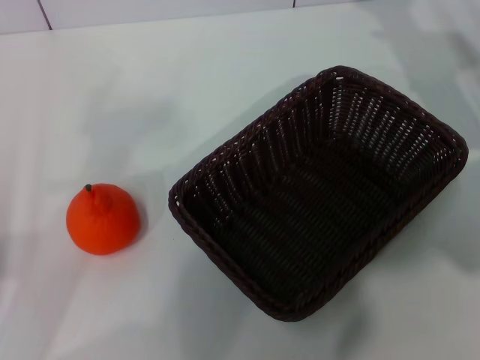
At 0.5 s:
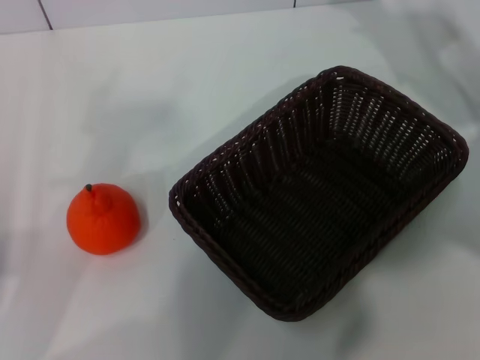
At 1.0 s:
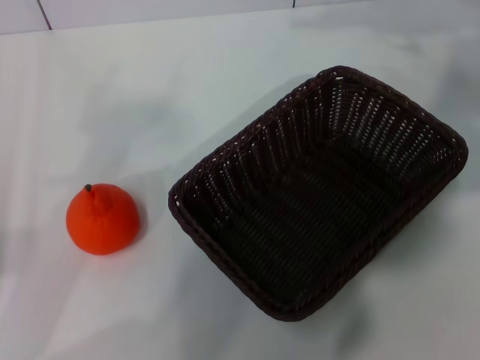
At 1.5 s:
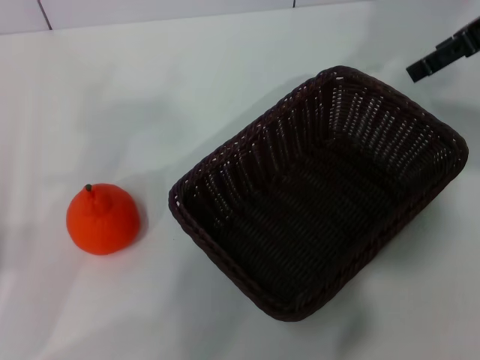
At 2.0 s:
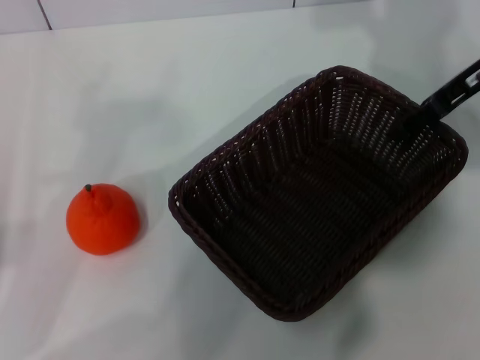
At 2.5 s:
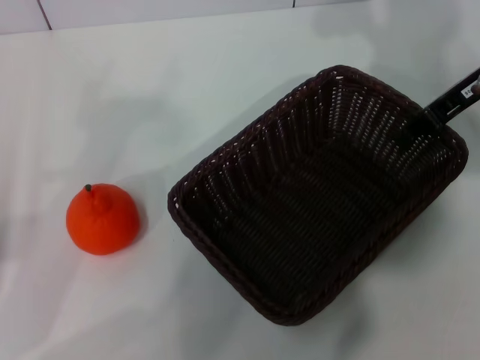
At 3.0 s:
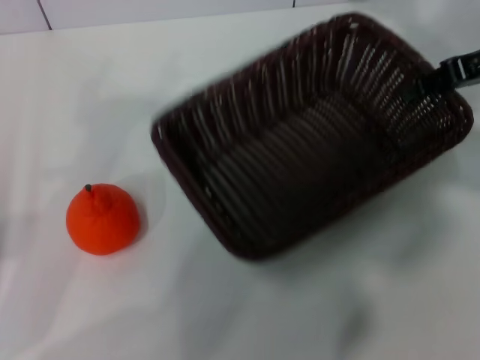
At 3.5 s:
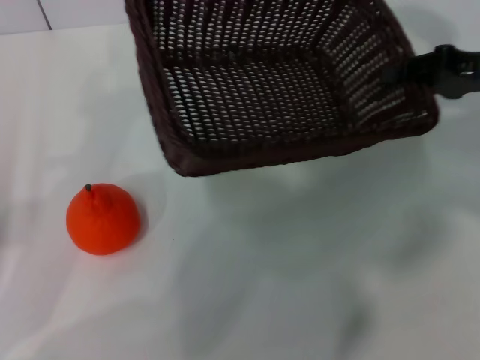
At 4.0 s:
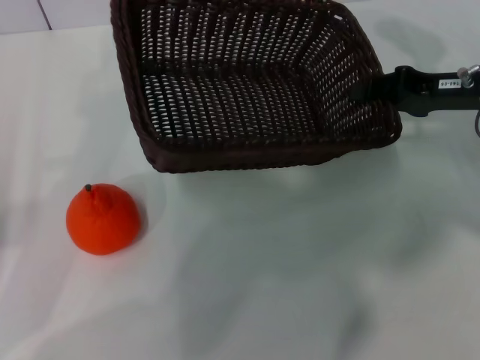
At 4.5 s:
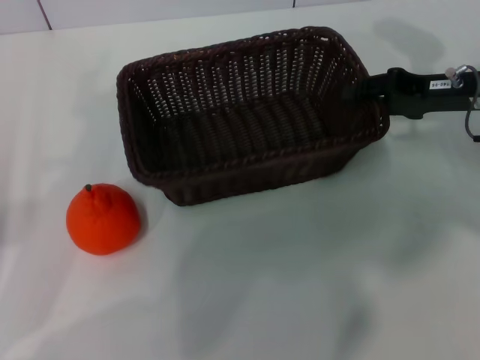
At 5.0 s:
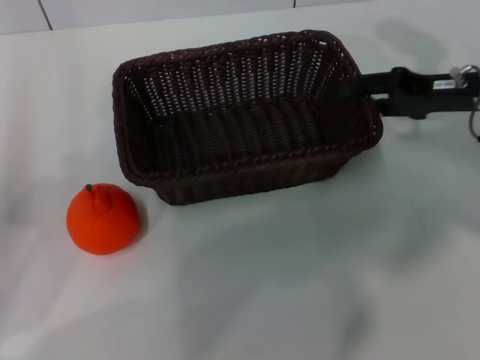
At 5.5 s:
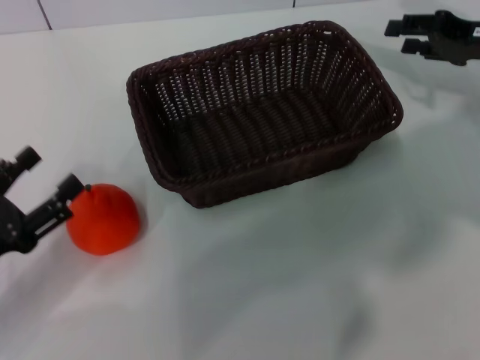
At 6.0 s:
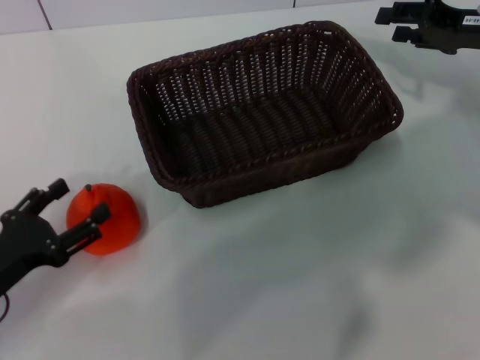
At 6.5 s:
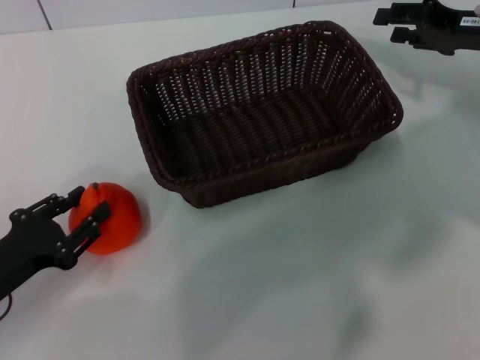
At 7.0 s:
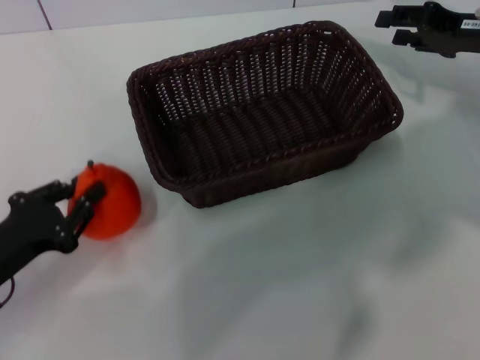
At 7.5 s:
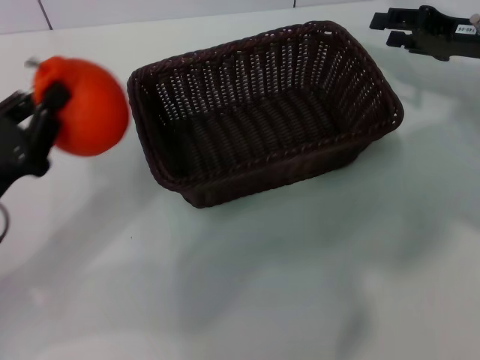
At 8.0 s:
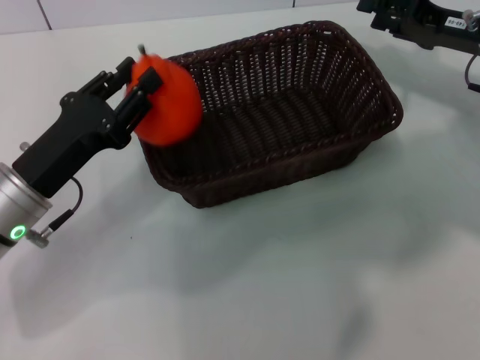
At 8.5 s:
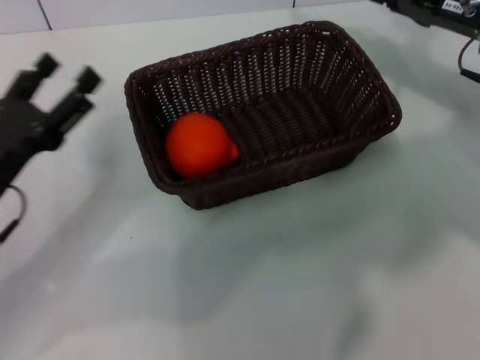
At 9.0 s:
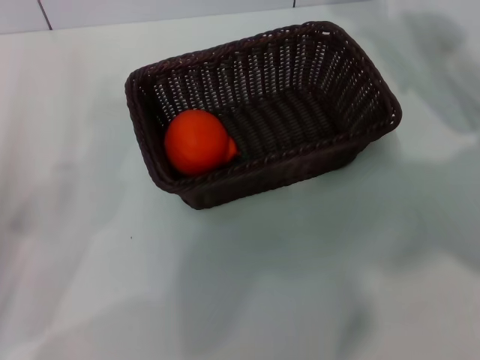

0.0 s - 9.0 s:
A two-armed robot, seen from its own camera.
Task of the whole recording: the right gripper pick up the black basket and place it horizontally in the middle of the table, the left gripper pick up the orange and place it into the black basket.
Step, 0.0 s - 2.5 s: Pick up the dark basket with the right gripper.
Step, 3.0 s - 5.0 s: Place the dark basket in the center of view with the right gripper.
Step, 5.5 s - 7.0 s: Pick up the orange with the left gripper.
Step, 7.5 s - 8.0 s: Place the orange into the dark basket with the left gripper.
0.0 s - 2.0 s: The right gripper heads upward, covering some 5 cm.
2.0 s - 4.5 s: The right gripper is displaced downward by approximately 10 cm, and closes.
4.5 s - 7.0 s: The right gripper opens its fingers. The left gripper ends up some 5 cm from where it was, and closes.
7.0 s - 9.0 s: The left gripper reaches approximately 5 cm to the right, then returns, and opens up.

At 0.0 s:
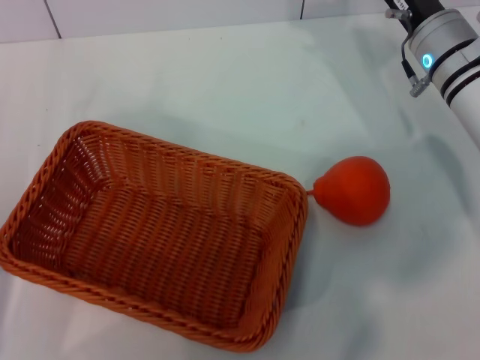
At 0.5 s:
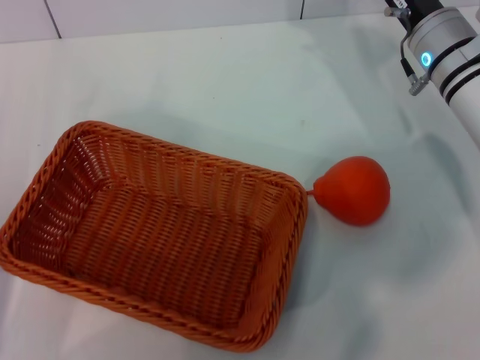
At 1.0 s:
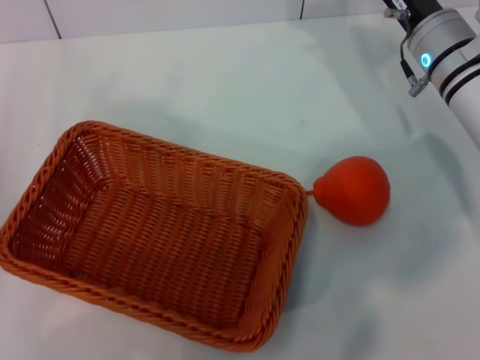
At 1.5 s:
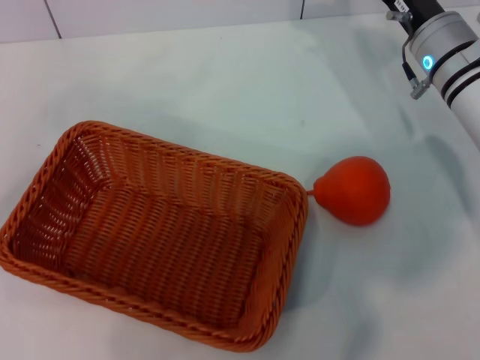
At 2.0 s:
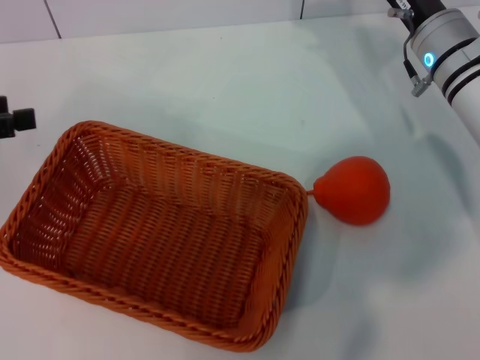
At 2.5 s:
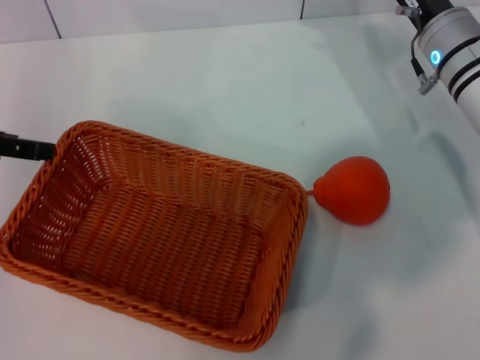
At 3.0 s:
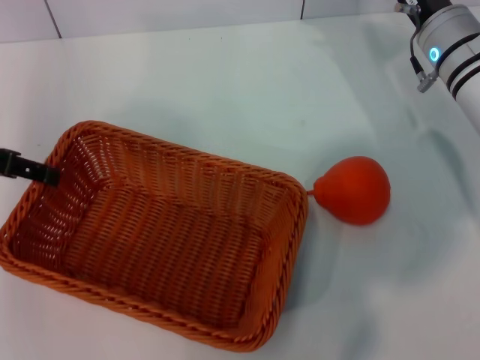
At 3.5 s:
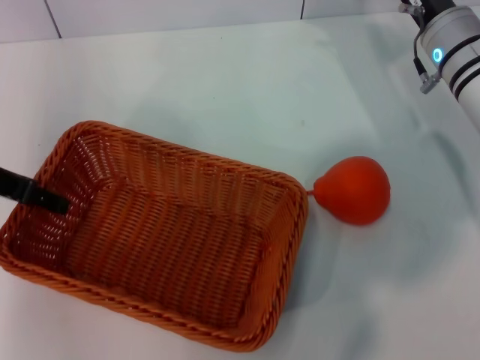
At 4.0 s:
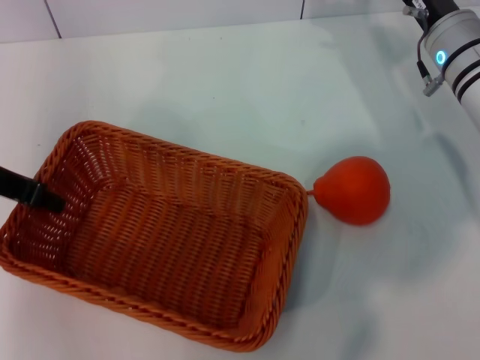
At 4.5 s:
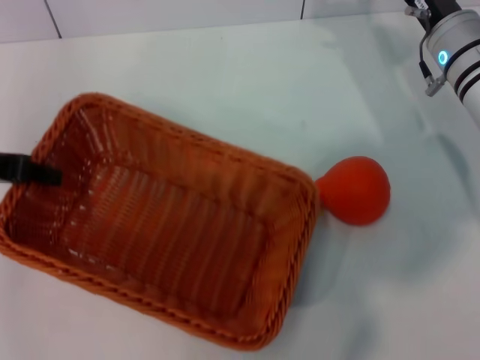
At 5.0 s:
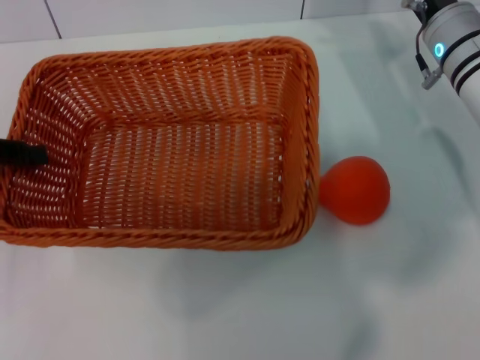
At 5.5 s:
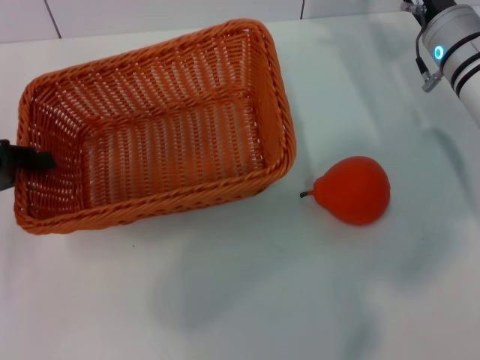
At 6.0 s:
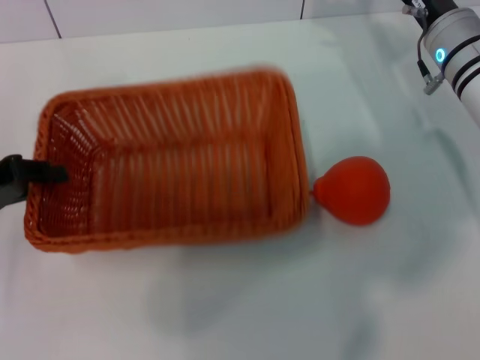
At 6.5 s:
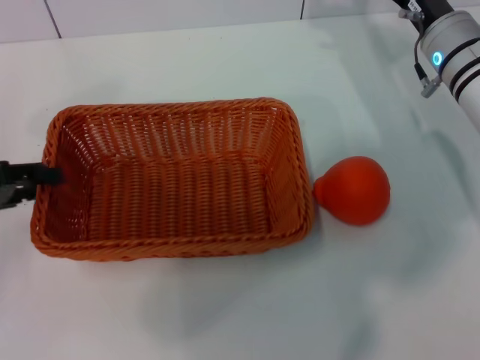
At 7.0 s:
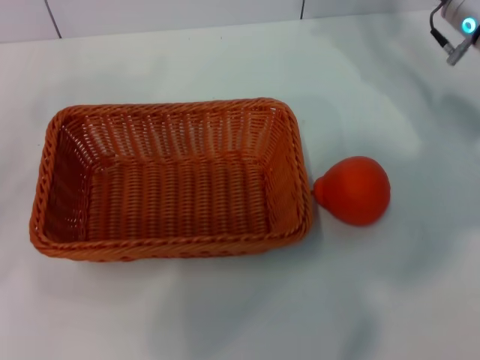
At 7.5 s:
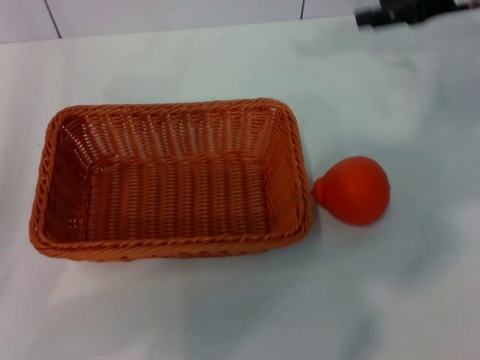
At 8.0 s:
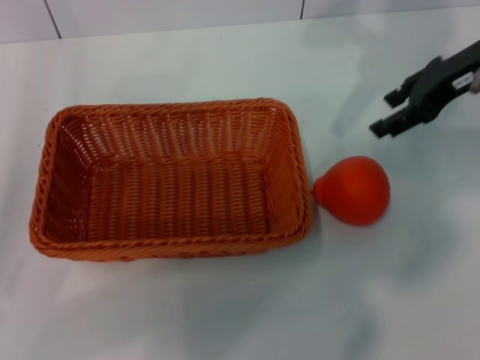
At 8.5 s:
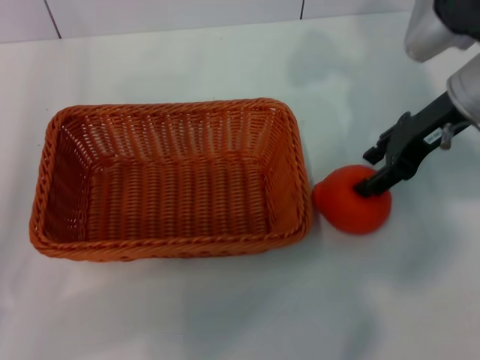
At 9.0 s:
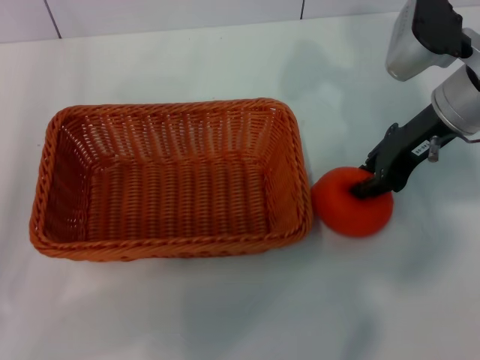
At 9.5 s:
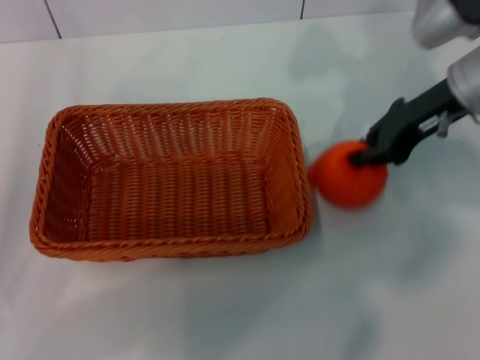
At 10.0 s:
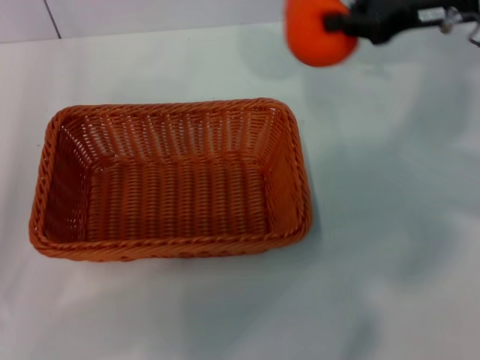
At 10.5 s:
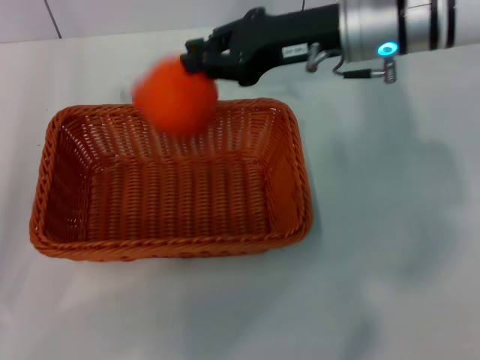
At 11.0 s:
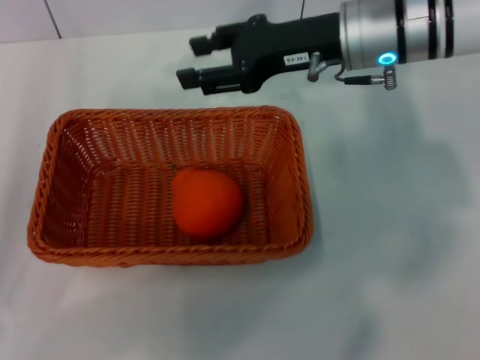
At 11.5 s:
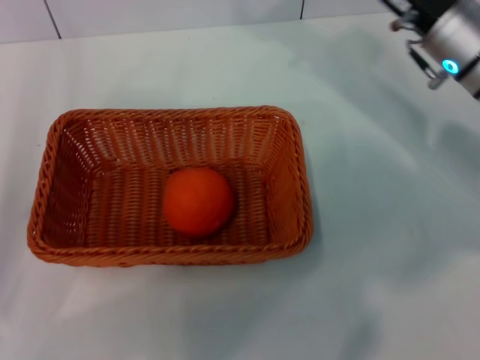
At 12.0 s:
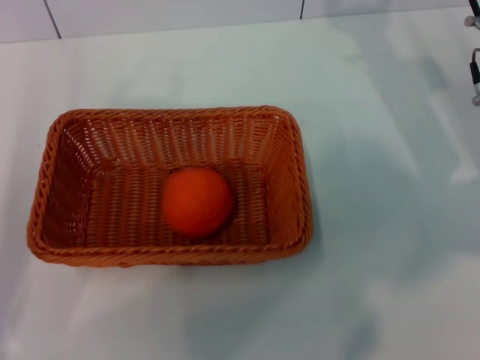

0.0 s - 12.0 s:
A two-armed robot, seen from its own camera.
Task of the whole recording: the left gripper pick up the yellow basket and place it horizontally in the middle of the table, the right gripper pick up the orange and place it into the yellow basket.
Step, 0.0 s - 4.0 s: Pick up the light basket with the left gripper.
Step, 5.0 s - 6.0 s: Place the light basket in the center of view with the left gripper.
Step, 6.5 s - 9.5 s: Pick up the orange with the right gripper.
Step, 10.0 s - 10.5 s: Place the orange into the light basket with the right gripper.
0.0 s - 2.0 s: The left gripper heads upward and forward, covering some 15 cm.
2.0 s - 4.0 s: The left gripper travels to the right by some 10 cm, and closes up.
4.0 s - 6.0 s: The left gripper moves to the left and downward, some 10 cm.
6.0 s - 8.0 s: The right gripper goes some 10 cm upward. Meanwhile the left gripper heads backward, covering some 5 cm, and opens up.
8.0 s - 10.0 s: The right gripper closes up.
10.0 s - 12.0 s: The right gripper moves downward, some 10 cm, reaches roughly 10 cm to the left, then returns, and opens up.

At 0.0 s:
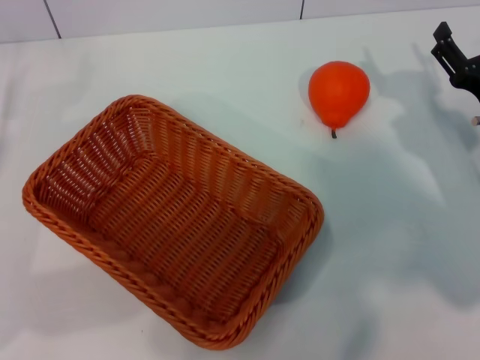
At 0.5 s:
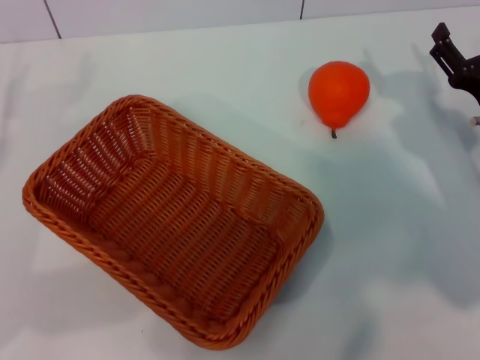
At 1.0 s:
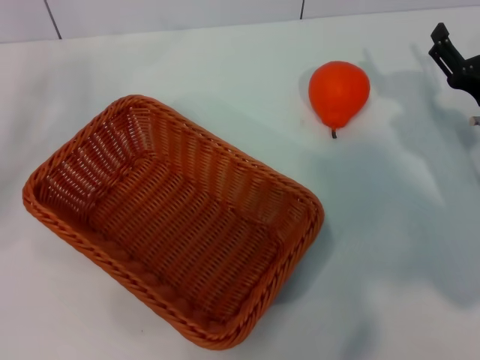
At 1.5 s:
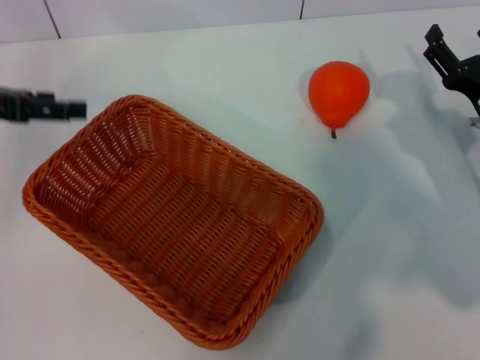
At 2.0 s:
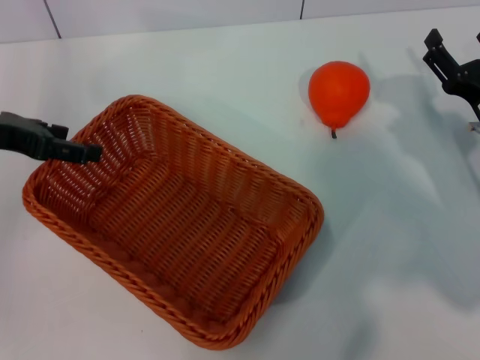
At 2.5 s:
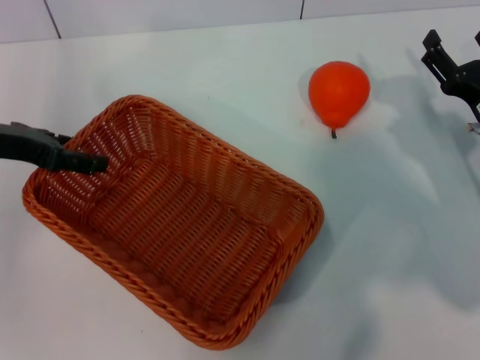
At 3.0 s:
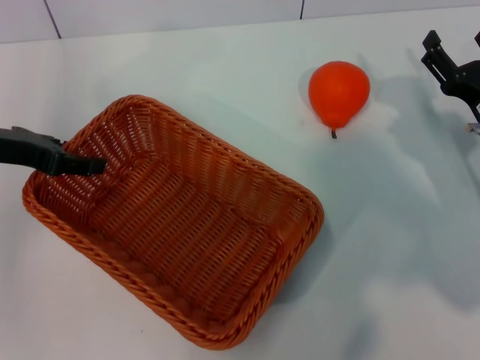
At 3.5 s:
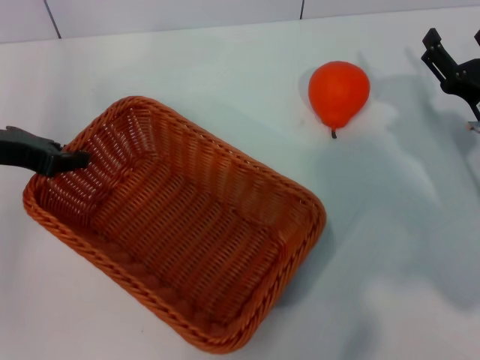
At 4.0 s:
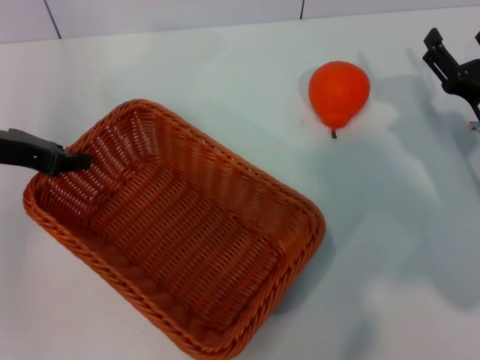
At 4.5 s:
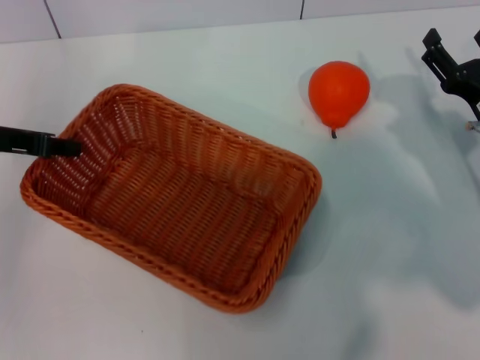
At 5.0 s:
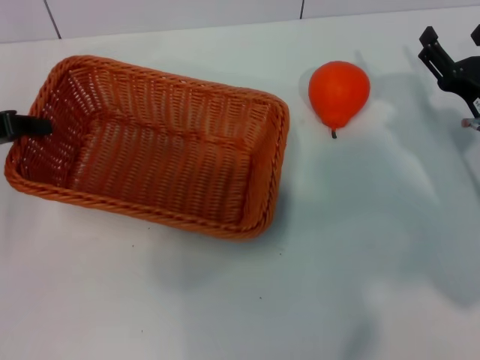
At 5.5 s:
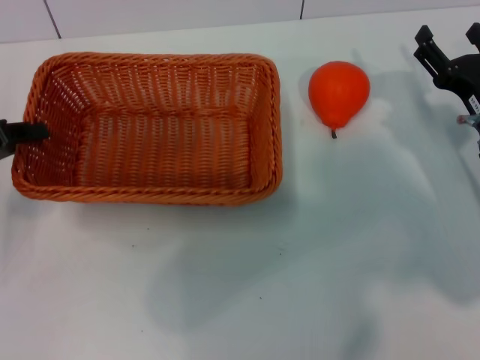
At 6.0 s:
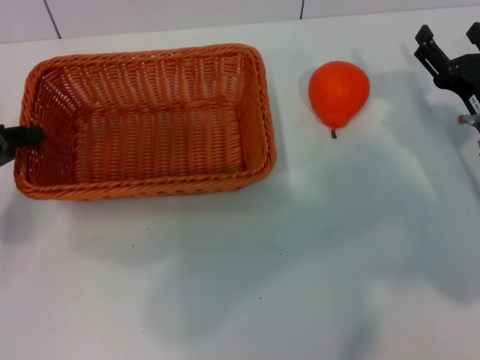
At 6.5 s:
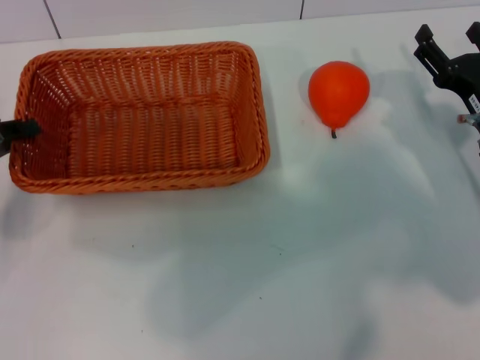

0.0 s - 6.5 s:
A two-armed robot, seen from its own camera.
Task of the whole recording: the left gripper pick up the yellow basket and place it horizontally in the middle of the table, the right gripper pick up the orange and place it into the yellow basket.
Step, 0.0 s - 5.0 s: Pick up the light basket with the left gripper.
0.0 s - 2.0 s: The left gripper travels upward, forward and to the right by about 15 cm.
2.0 s - 4.5 s: The left gripper closes.
4.5 s - 6.5 s: The left gripper heads downward, covering some 5 cm.
